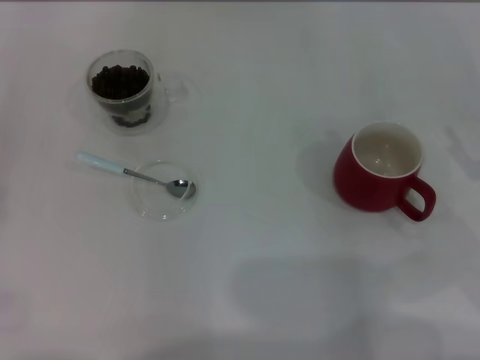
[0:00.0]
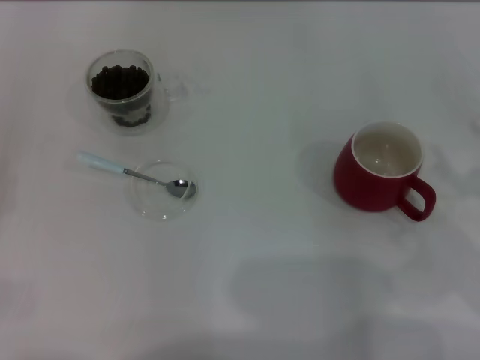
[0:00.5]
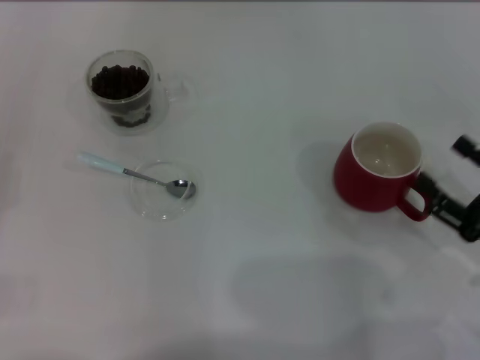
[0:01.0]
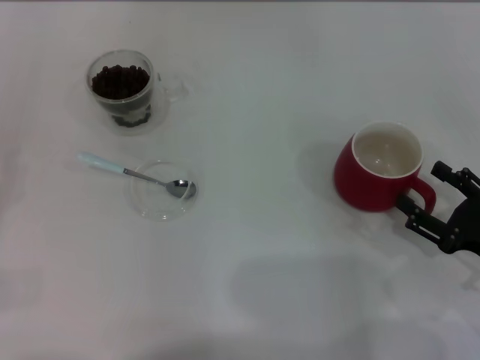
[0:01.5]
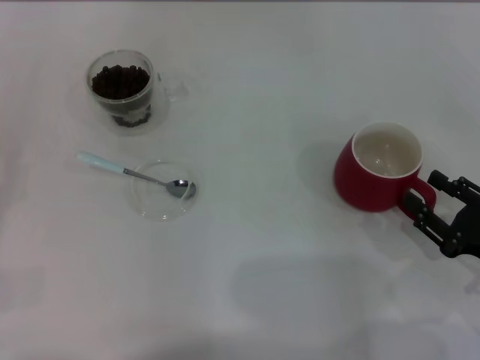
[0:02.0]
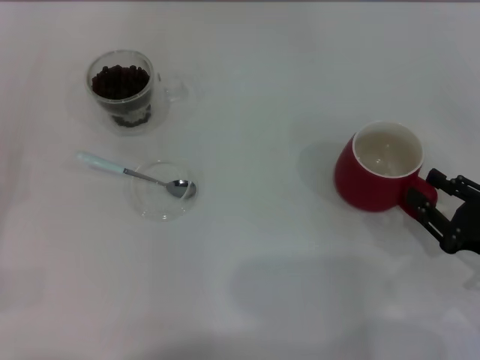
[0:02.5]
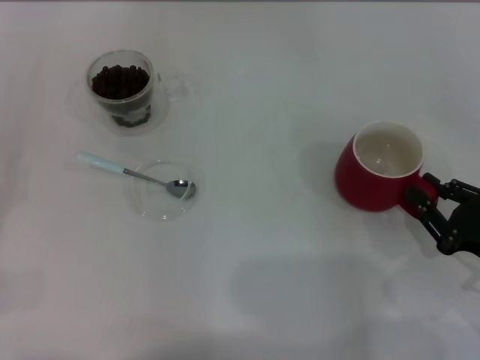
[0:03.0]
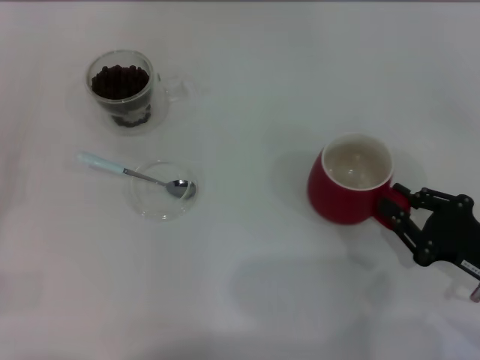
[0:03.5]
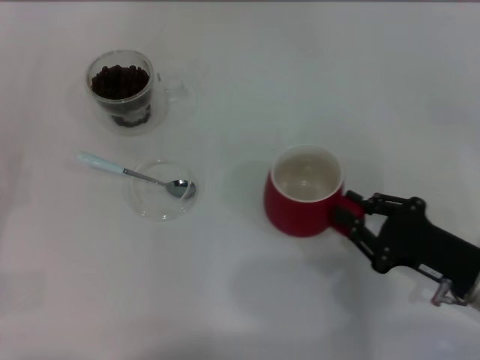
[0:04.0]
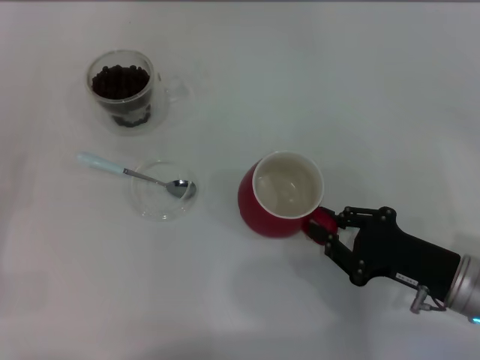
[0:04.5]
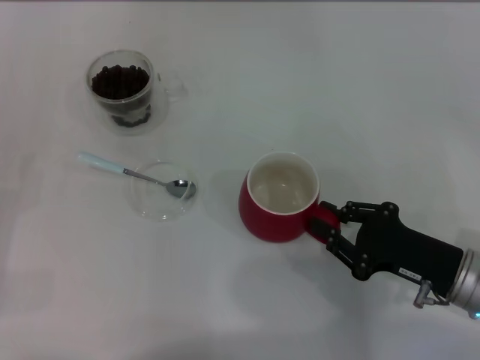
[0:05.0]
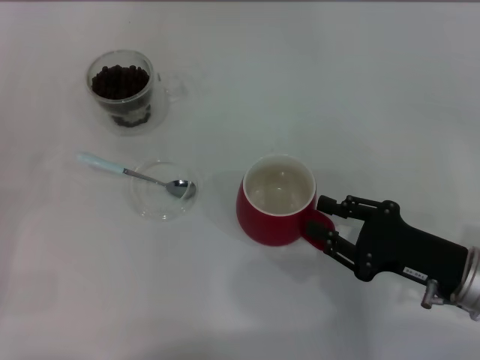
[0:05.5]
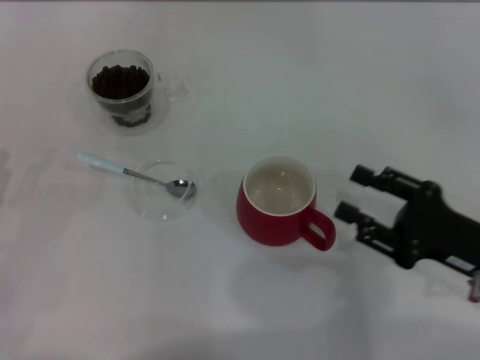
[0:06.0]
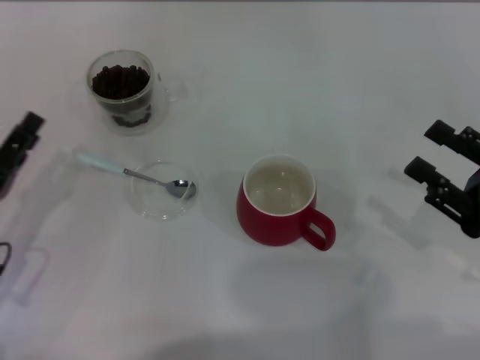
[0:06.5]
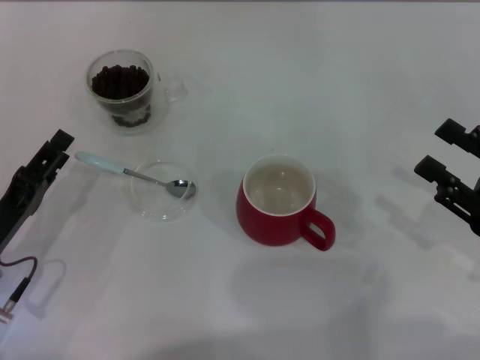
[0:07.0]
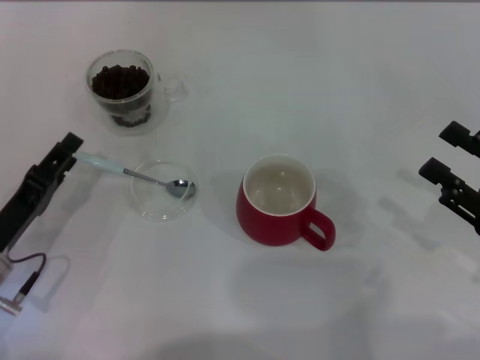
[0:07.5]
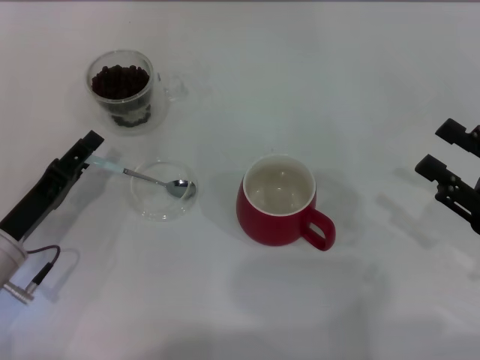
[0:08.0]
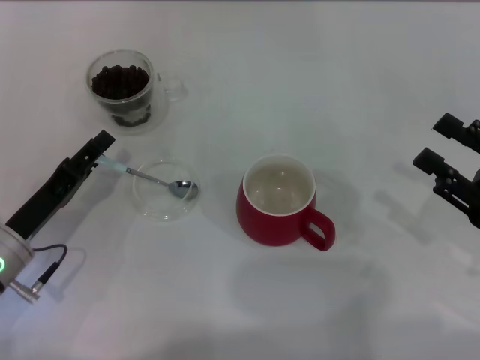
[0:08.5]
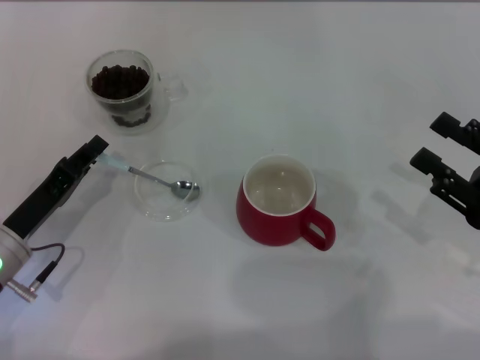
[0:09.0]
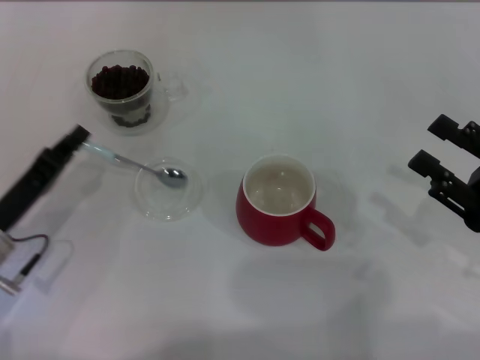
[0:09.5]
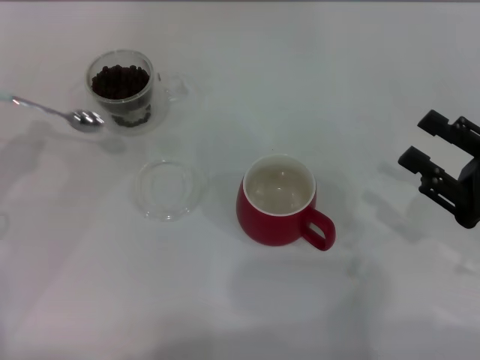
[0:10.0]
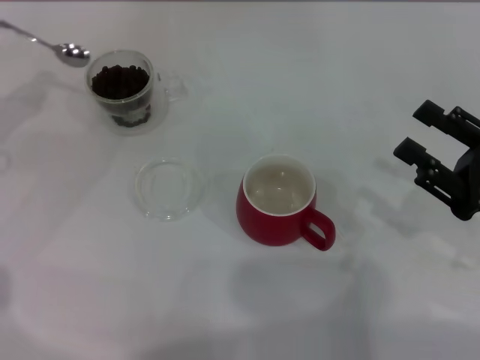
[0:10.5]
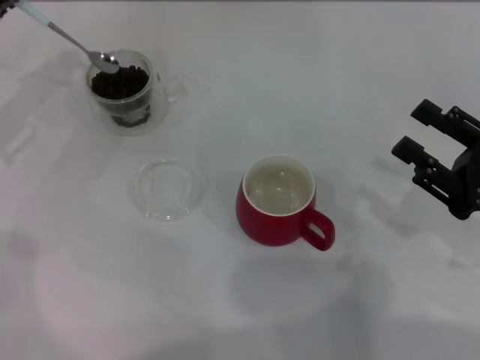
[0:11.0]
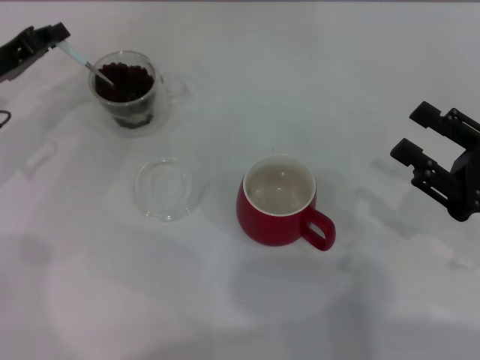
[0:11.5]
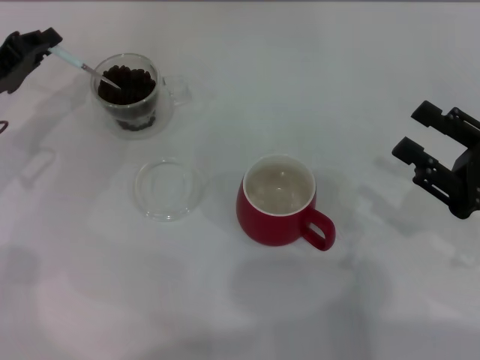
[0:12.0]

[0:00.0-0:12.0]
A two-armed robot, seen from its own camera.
Task of the whole recording: Use a blue spoon to take out the coffee beans from the glass and pour them into the red cup.
Step, 0:00.0 to 0:05.5: Move the cup to the center of view with the left gripper.
Step, 0:06.0 to 0:09.5: Pick up the spoon with the right gripper.
0:00.0 to 0:02.0: The right gripper moves downward, about 5 cm.
0:02.0 to 0:04.0: The right gripper travels to the left by some 5 cm, and closes.
0:04.0 to 0:06.0: The left gripper moves to the right, roughly 5 cm, while the right gripper opens.
0:06.0 to 0:08.0: The left gripper shifts about 10 cm to the right. The right gripper moves approximately 5 cm.
0:08.0 to 0:10.0: The left gripper travels to the left and upward by about 10 cm, and closes.
0:10.0 to 0:12.0: The left gripper shifts about 10 cm forward.

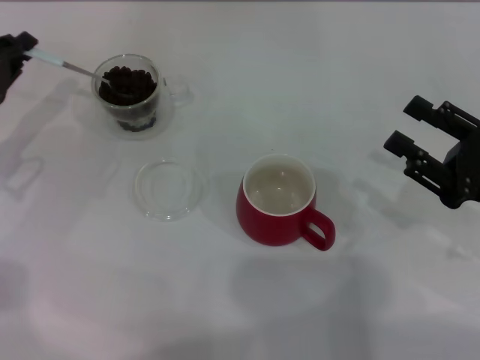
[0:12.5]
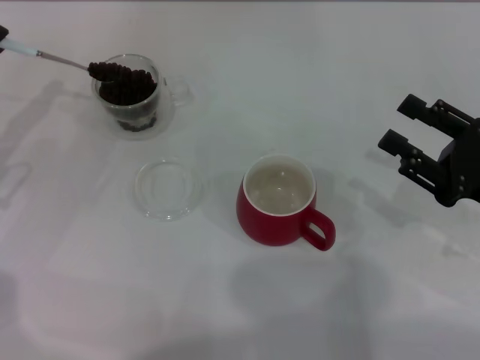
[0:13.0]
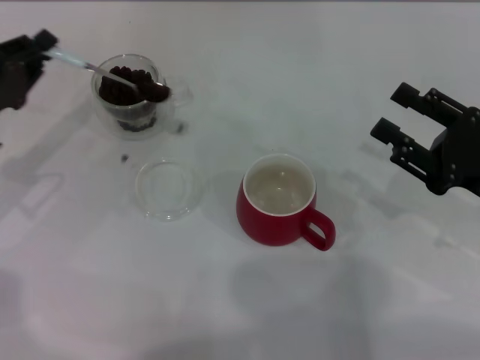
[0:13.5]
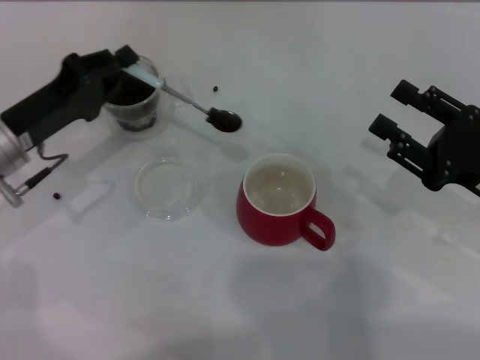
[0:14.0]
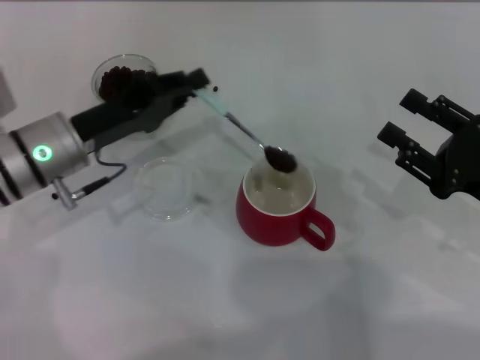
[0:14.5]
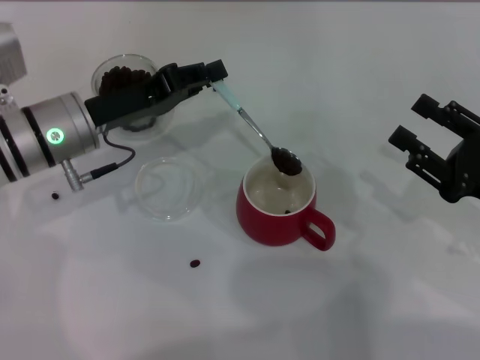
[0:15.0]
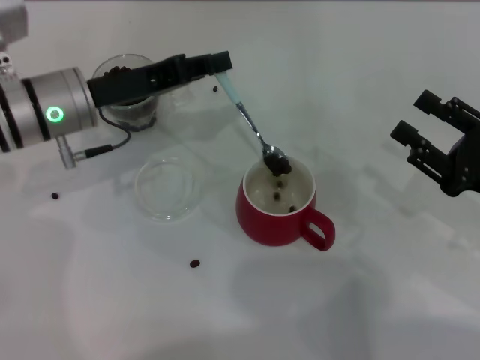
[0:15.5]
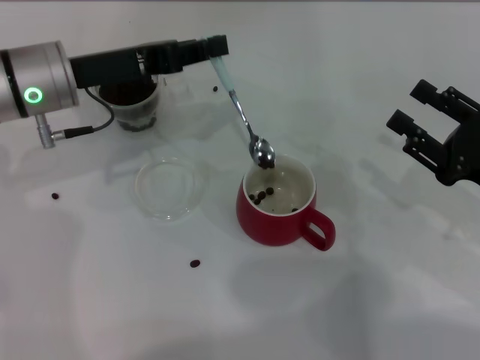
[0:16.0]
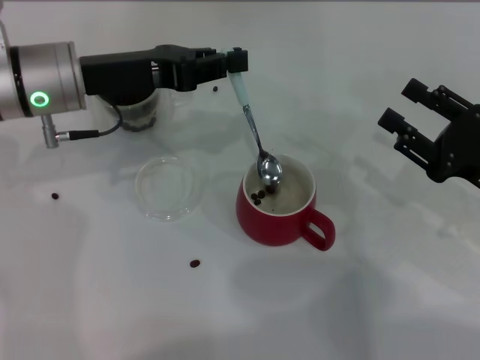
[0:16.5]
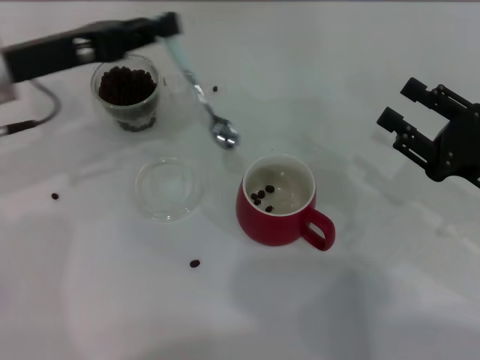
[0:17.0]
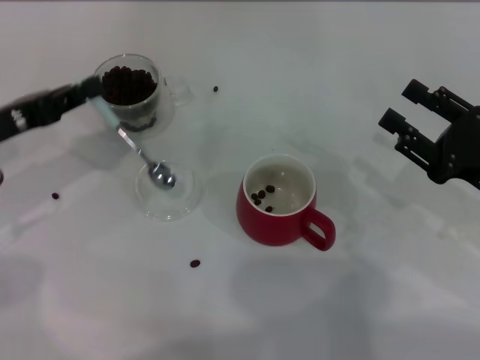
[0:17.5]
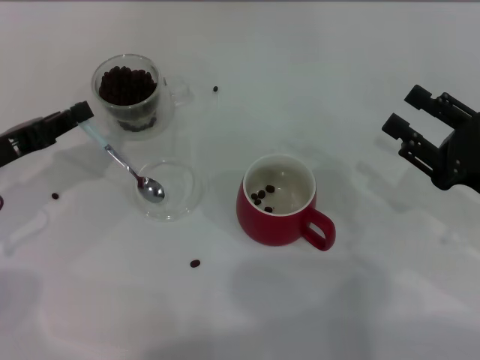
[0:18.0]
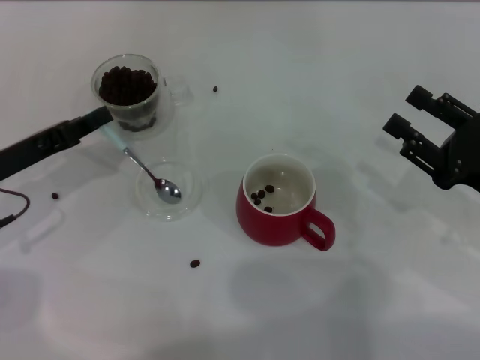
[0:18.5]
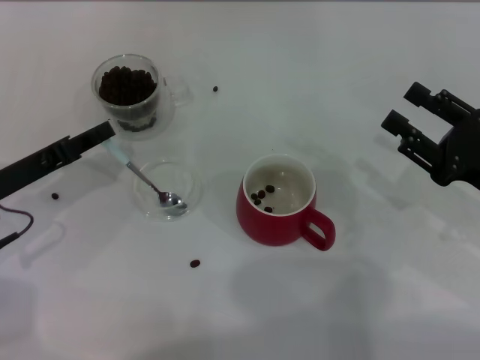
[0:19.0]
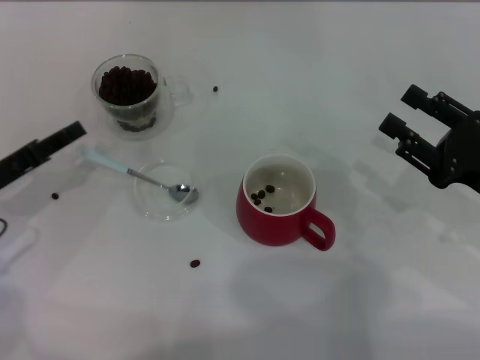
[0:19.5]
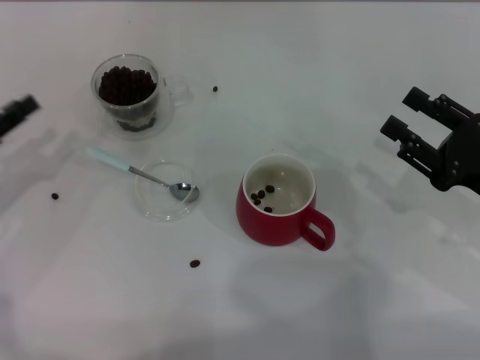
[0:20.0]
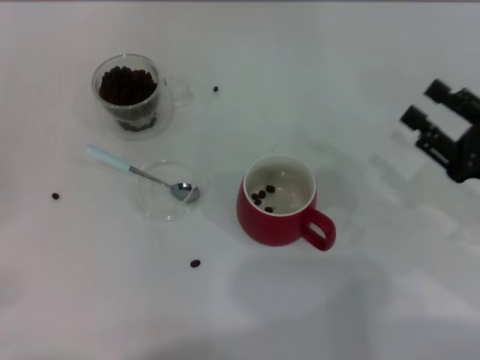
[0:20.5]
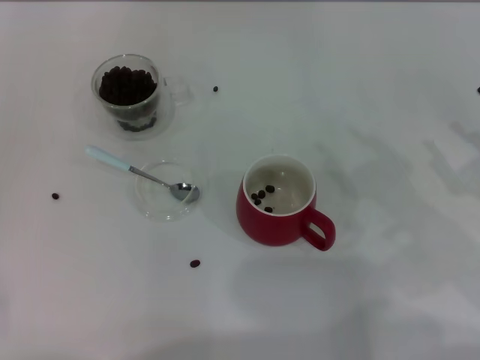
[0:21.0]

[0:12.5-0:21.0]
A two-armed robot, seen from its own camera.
Task of the whole recording: Use a blue spoon to take out the coffee beans from the glass and pour them into the red cup.
Step, 0:12.5 to 0:16.5: Scoop a spoonful of beans into the cup with the right gripper.
0:12.5 to 0:14.5: The left gripper travels to the right by approximately 10 cm.
0:14.5 to 0:16.5: The left gripper moves upward, about 5 cm.
0:16.5 to 0:19.0: The left gripper moves to the left, downward and backward, some 15 cm.
0:19.0 to 0:21.0: The left gripper heads to the left and backward, covering some 20 cm, and opens.

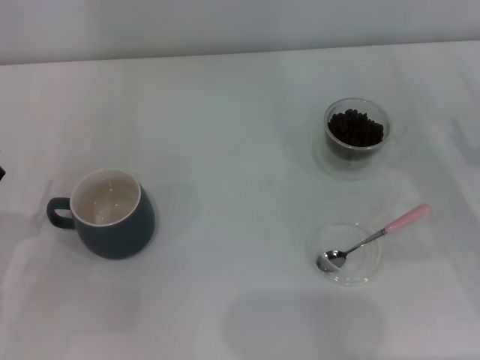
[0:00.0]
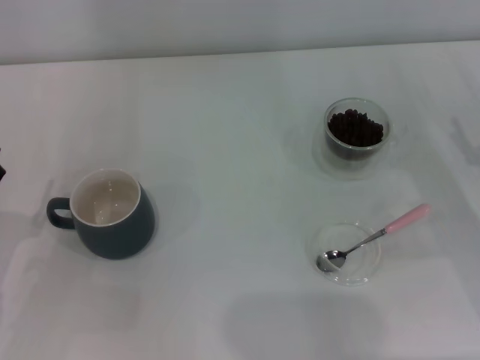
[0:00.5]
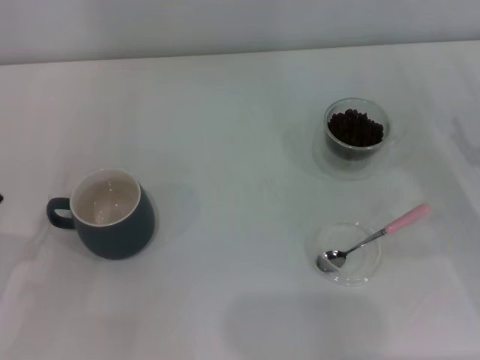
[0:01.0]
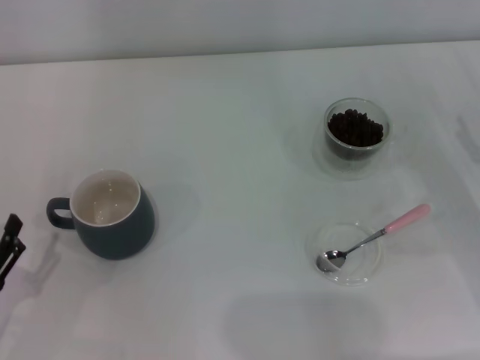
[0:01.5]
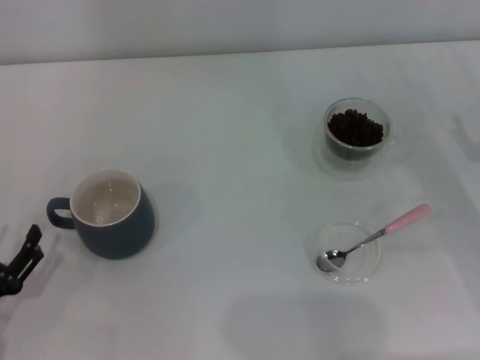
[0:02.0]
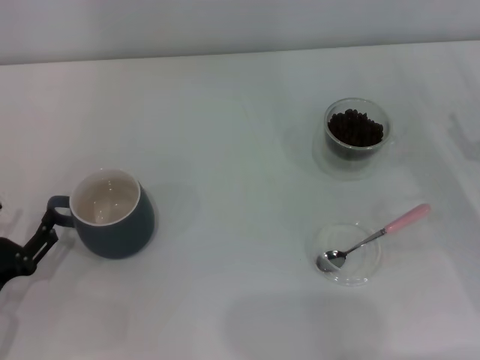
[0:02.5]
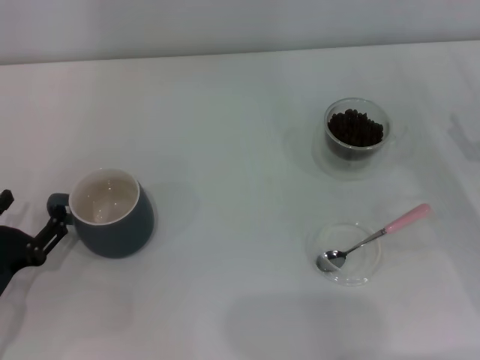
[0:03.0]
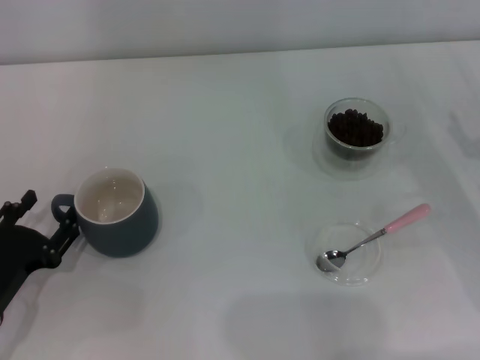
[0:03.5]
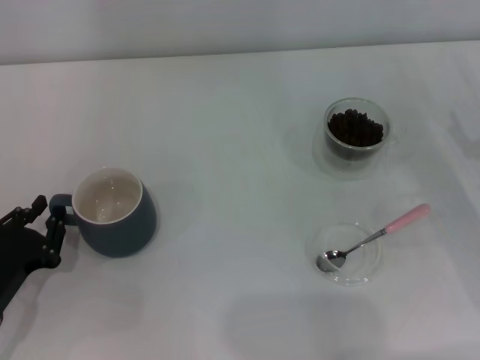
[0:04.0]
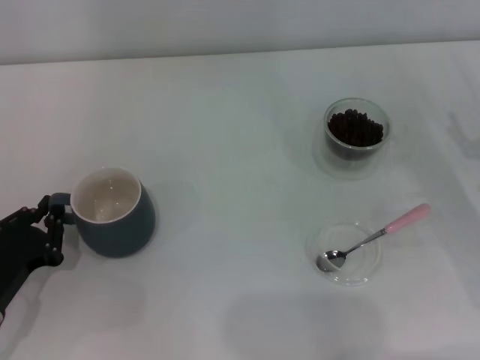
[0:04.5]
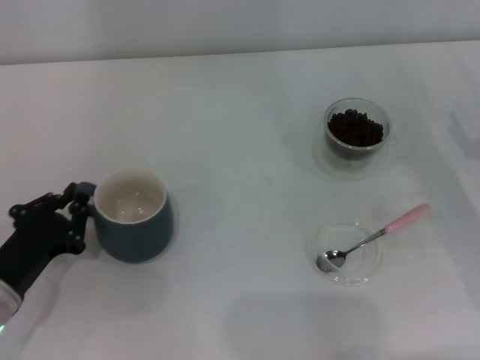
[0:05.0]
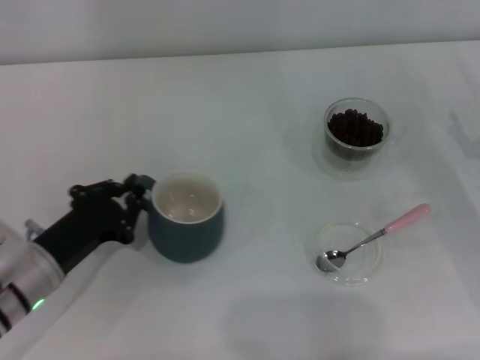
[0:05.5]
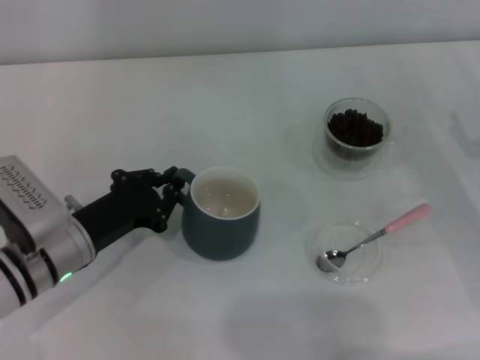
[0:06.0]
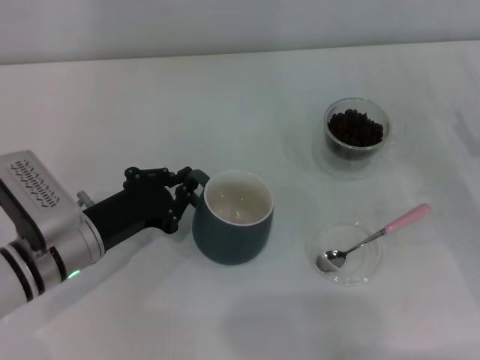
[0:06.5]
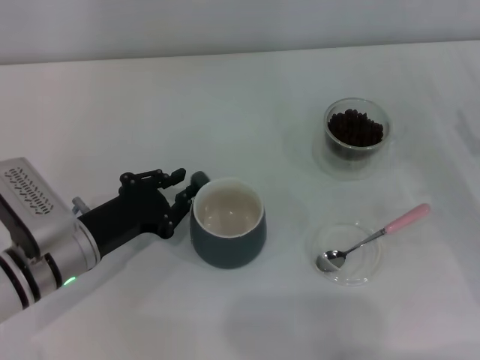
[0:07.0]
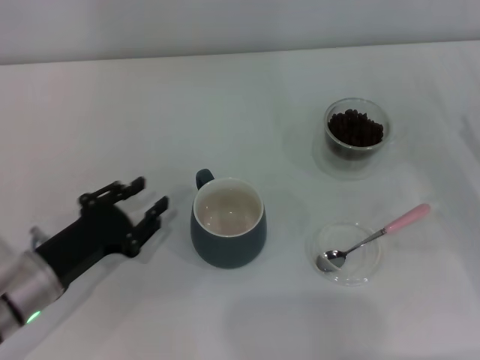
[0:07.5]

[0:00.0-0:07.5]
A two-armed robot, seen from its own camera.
Task of the whole recording: Use a pink spoon to take out the coffee beans from the glass and pour them into the gray cup.
Step, 0:00.0 to 0:07.0: Move the cup to the center of view with the left gripper.
0:00.0 to 0:02.0: The left gripper moves about 5 cm.
0:02.0 to 0:04.0: The left gripper closes up.
0:04.0 to 0:05.5: The left gripper moves to the right, approximately 5 cm, and closes.
0:05.5 to 0:07.5: The left gripper opens its fingers.
